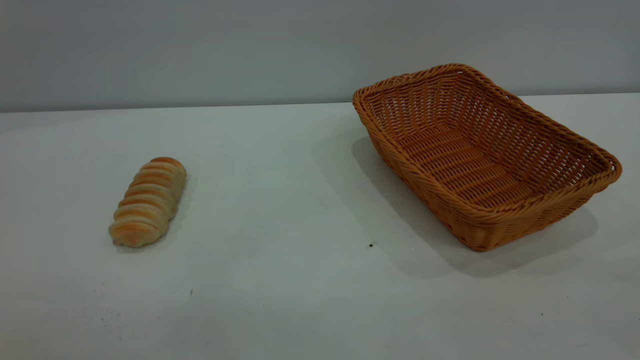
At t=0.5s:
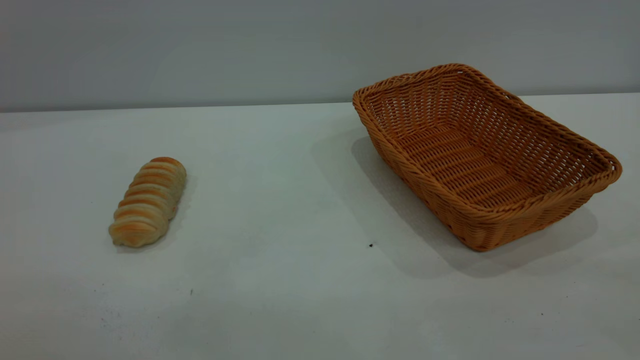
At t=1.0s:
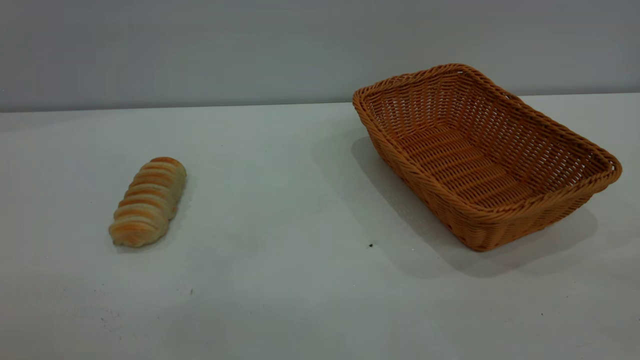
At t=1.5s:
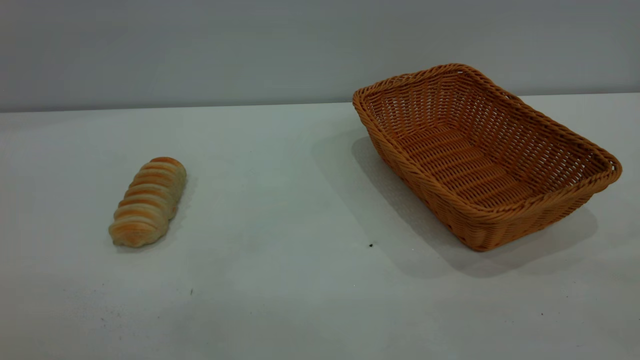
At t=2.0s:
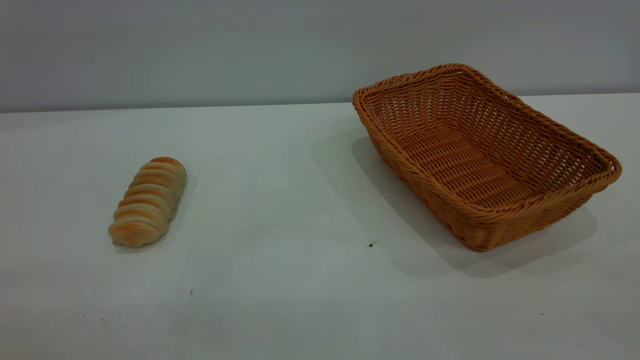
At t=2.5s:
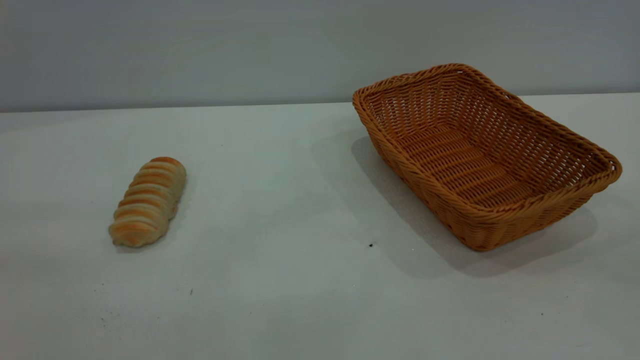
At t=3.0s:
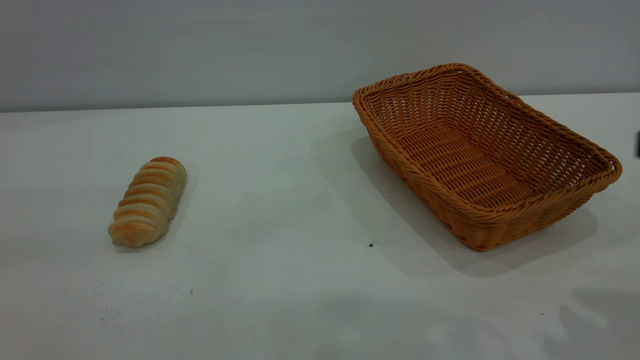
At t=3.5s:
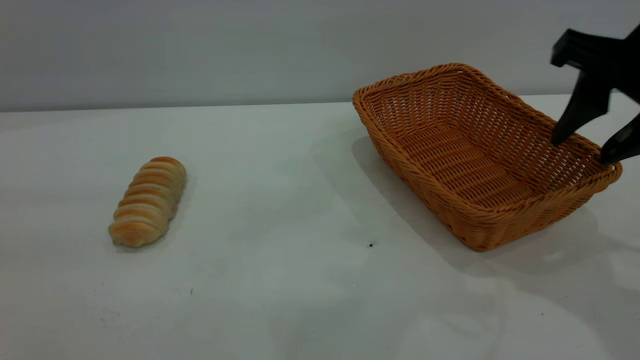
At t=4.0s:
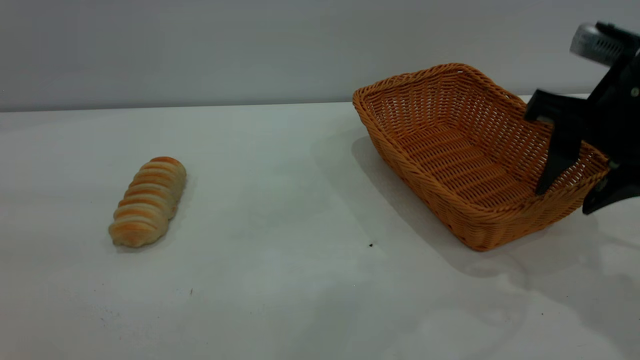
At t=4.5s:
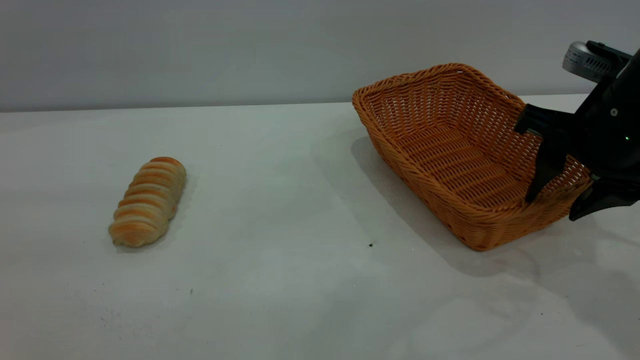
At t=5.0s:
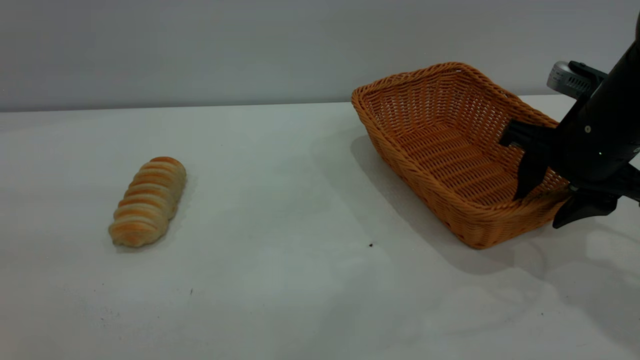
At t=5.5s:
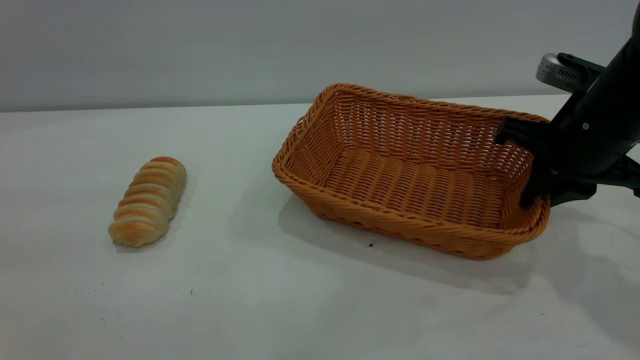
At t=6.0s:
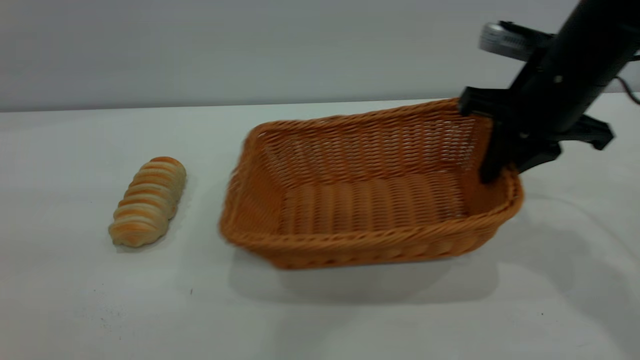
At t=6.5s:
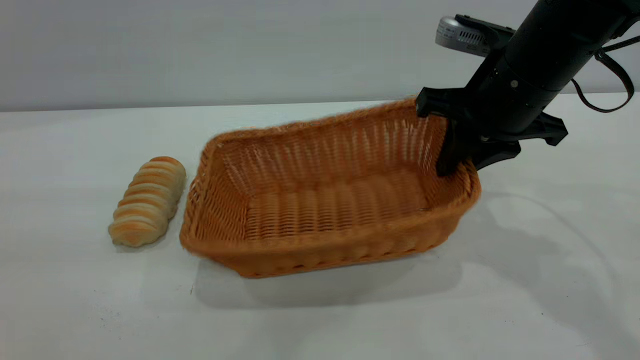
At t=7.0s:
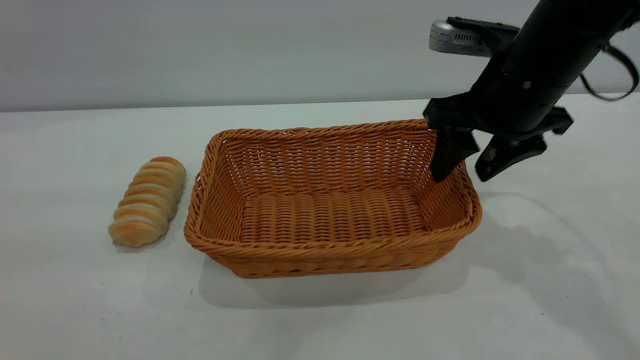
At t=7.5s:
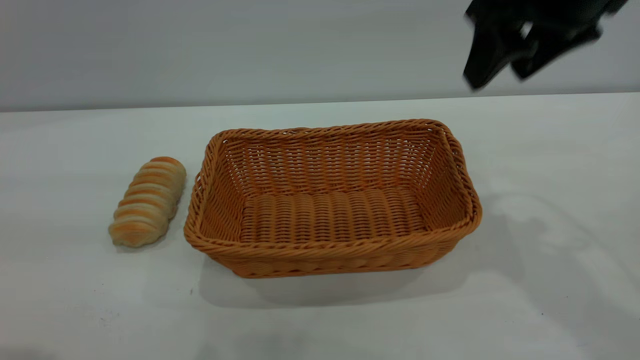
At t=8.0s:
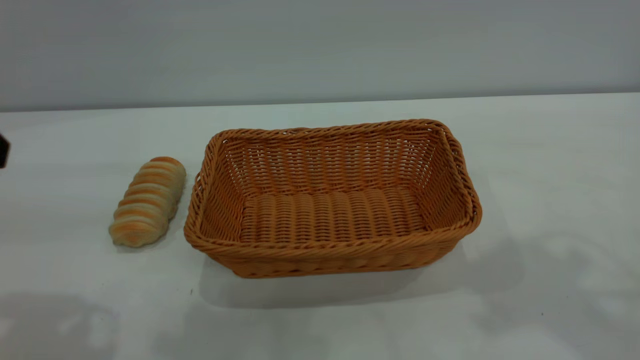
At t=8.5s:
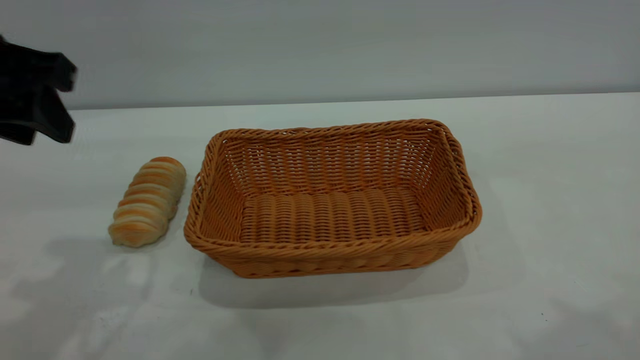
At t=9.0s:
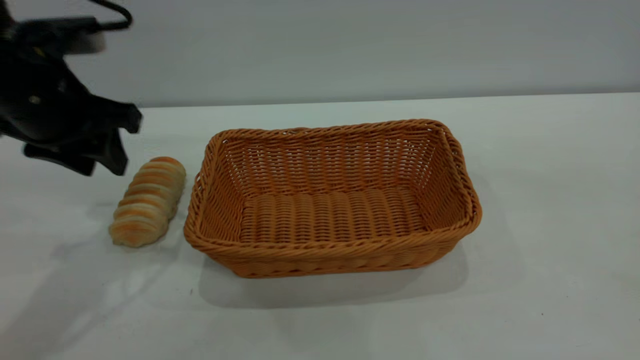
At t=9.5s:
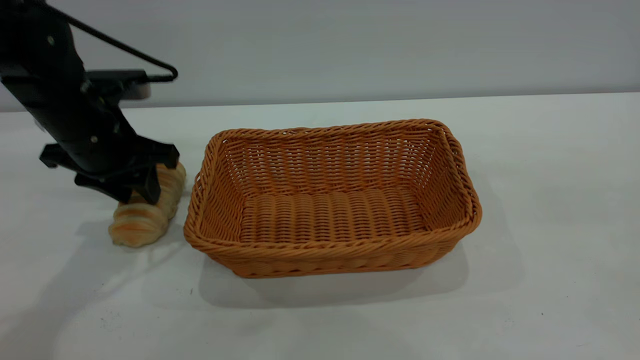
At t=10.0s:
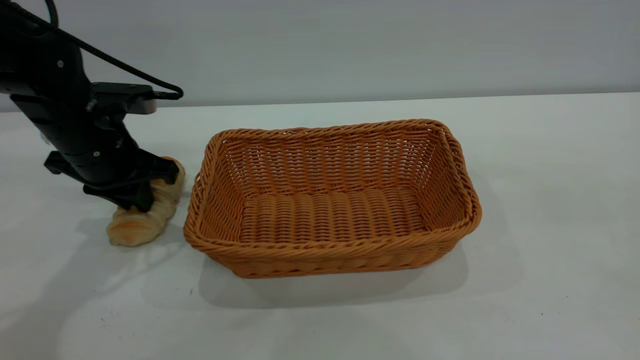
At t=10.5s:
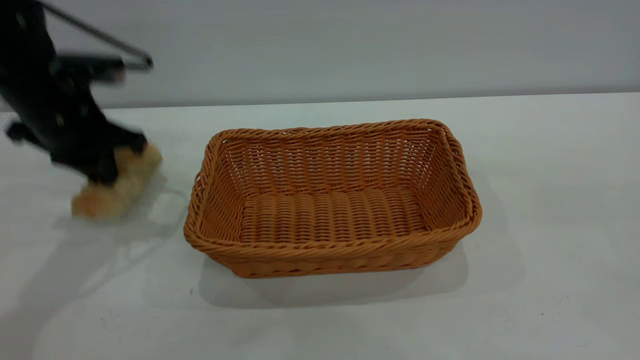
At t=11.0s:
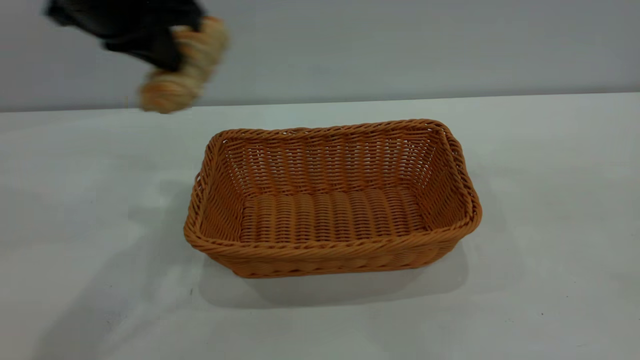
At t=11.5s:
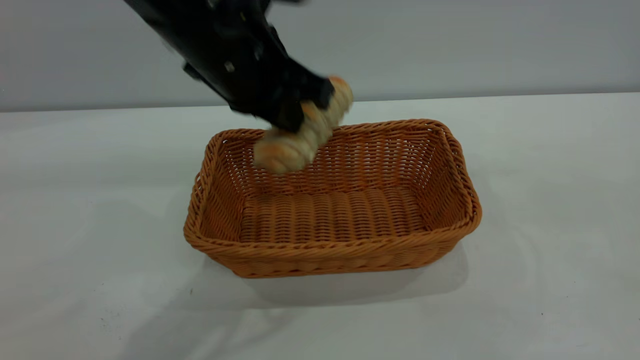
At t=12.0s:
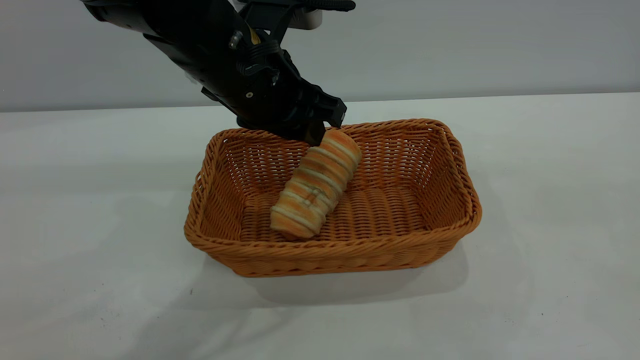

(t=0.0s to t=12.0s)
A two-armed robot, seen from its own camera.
Task of the whole recording: One hand grasps the yellow basket and places it in the middle of the table, while the other hand picks up the long bread and puts it into the yellow basket.
Step, t=0.0s - t=7.0s: Move the basket to the center of view.
t=2.0s - t=4.0s: The right gripper moves forward and downward, approximately 35 cm.
t=4.0s - t=6.0s: The right gripper moves forward, some 5 cm, and closes up.
t=6.0s - t=8.0s: The right gripper travels upward and backward by roughly 25 cm, and opens its fingers. Meanwhile the left gripper is displaced forward and downward by about 15 cm.
t=8.0s - t=10.0s: The left gripper shifts approximately 25 cm forward and downward, and closes. The right gripper moves backward, approximately 15 cm.
t=10.0s - t=12.0s: The left gripper moves to the right and upward, some 20 cm, and opens up.

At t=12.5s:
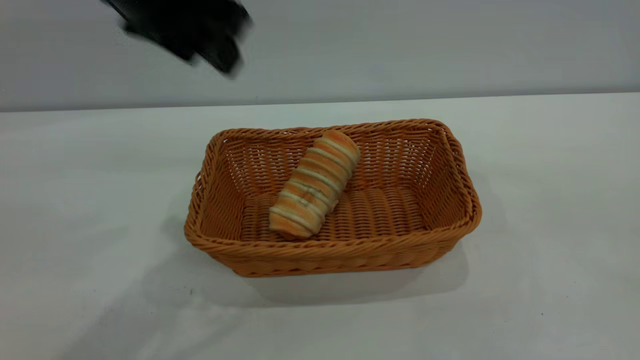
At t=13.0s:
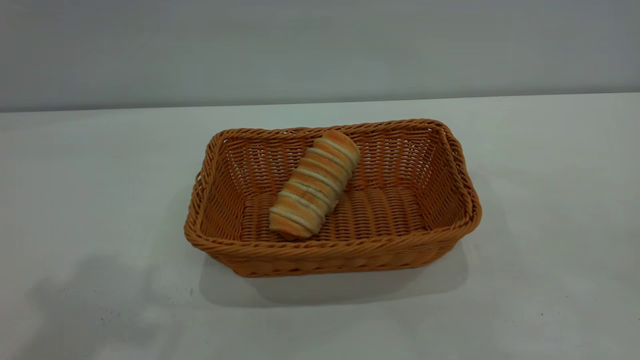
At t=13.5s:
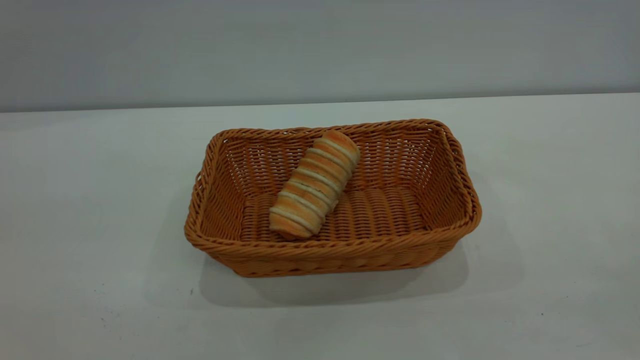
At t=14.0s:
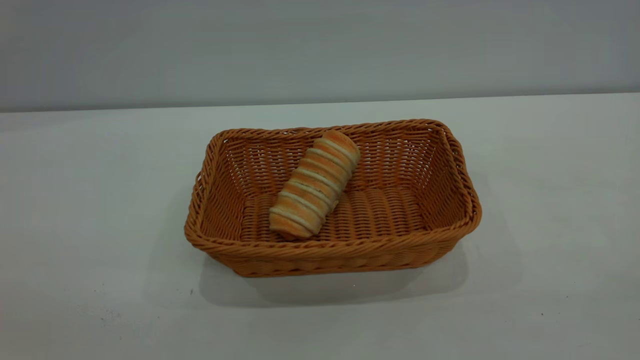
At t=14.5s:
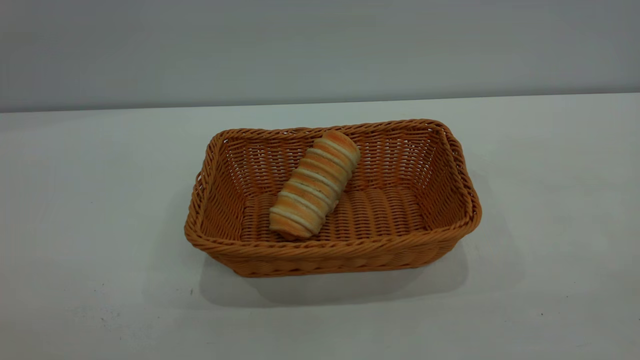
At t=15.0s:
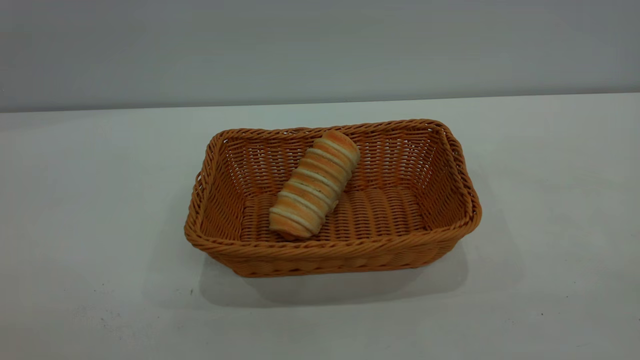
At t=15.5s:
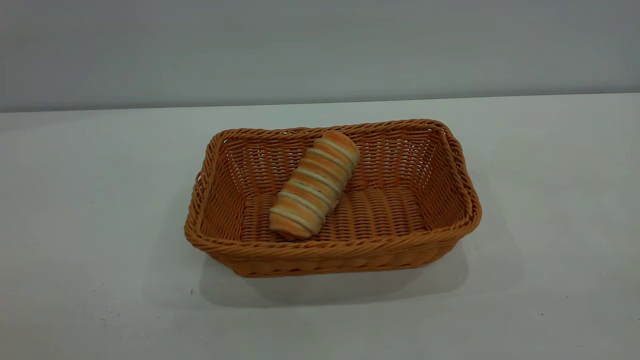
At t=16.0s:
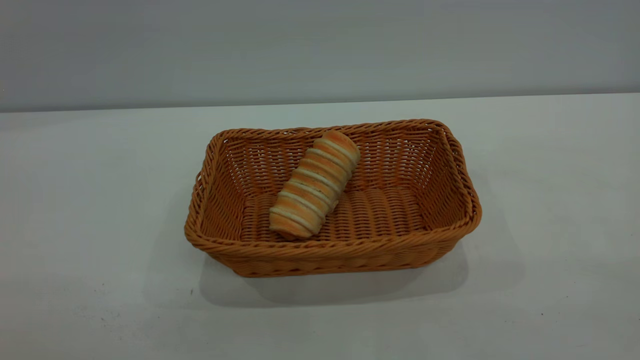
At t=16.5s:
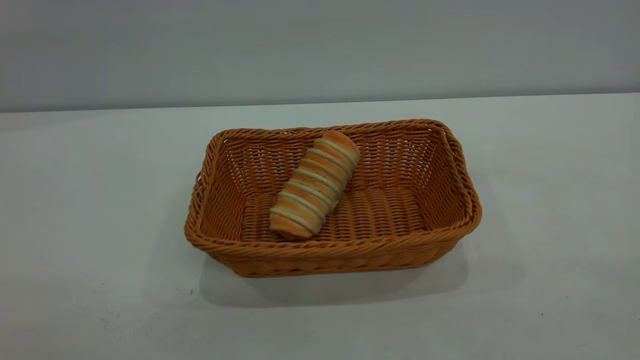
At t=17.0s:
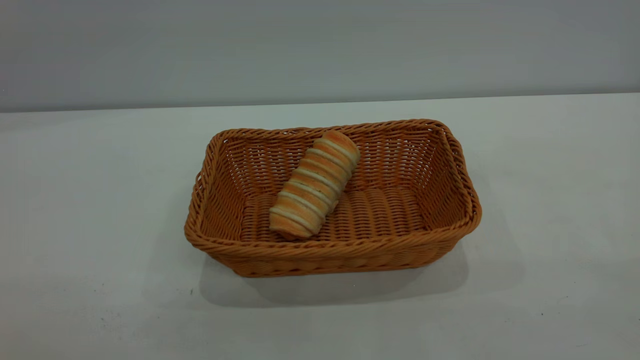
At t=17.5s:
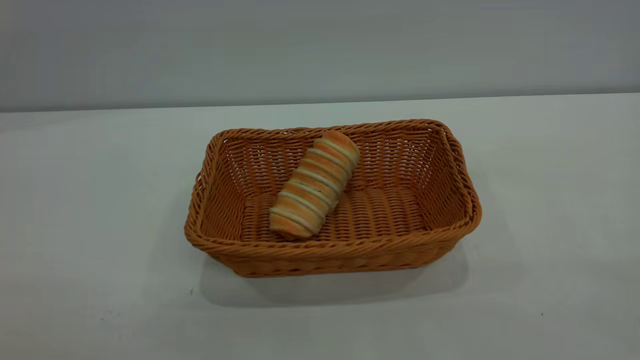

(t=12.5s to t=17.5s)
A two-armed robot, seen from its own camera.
Task of the whole recording: One hand grasps the yellow basket and places it in the middle of the table, while the other hand picks up the long bread and puts it into the yellow basket.
t=12.5s - t=15.0s: The left gripper heads backward and to the left, covering approximately 40 cm; the right gripper goes roughly 15 cm downward and backward.
